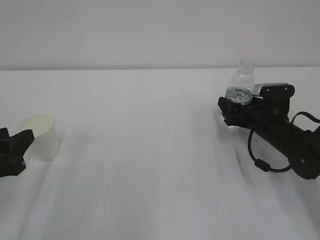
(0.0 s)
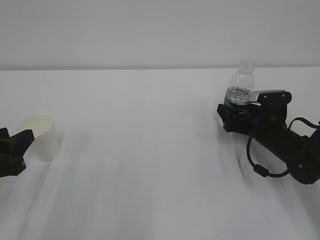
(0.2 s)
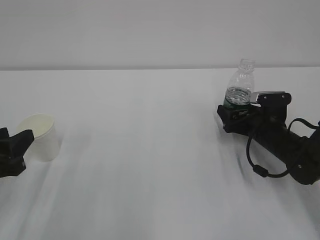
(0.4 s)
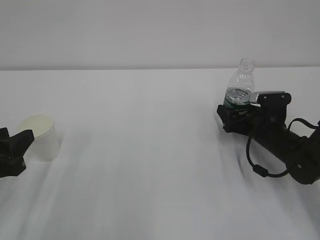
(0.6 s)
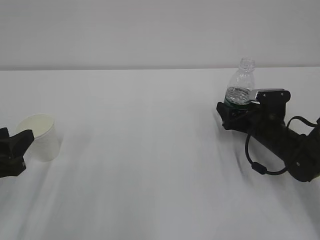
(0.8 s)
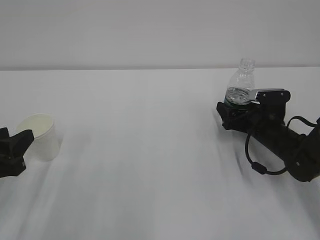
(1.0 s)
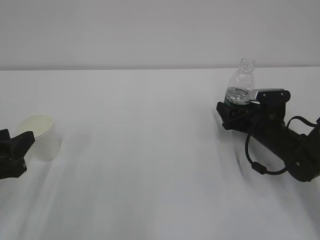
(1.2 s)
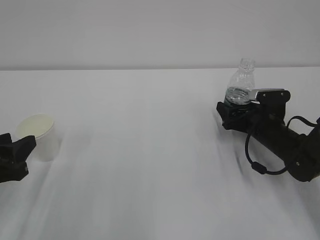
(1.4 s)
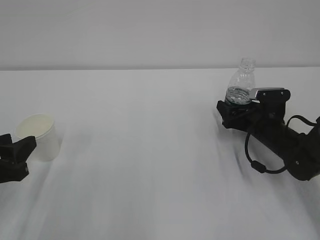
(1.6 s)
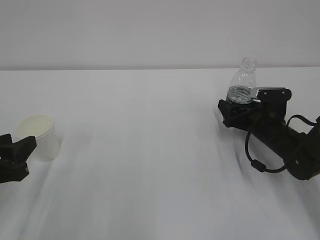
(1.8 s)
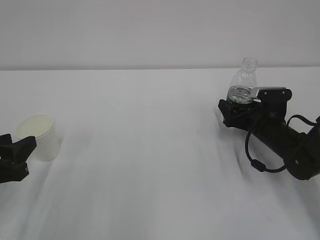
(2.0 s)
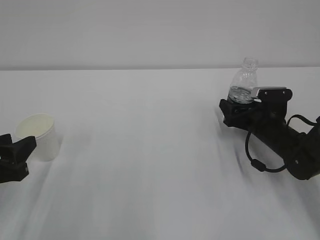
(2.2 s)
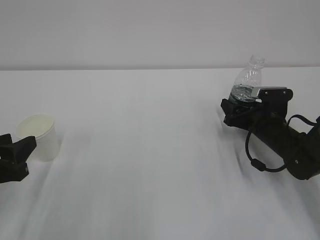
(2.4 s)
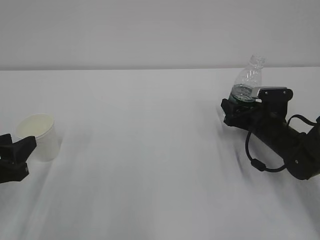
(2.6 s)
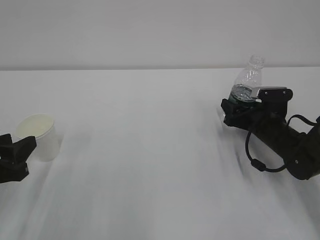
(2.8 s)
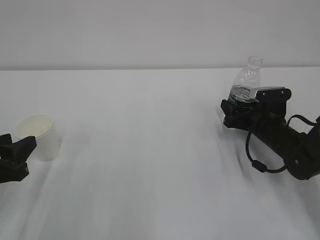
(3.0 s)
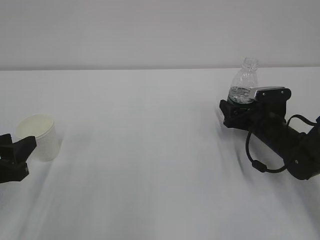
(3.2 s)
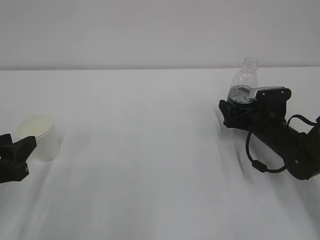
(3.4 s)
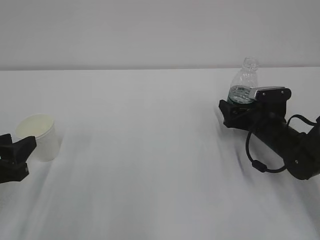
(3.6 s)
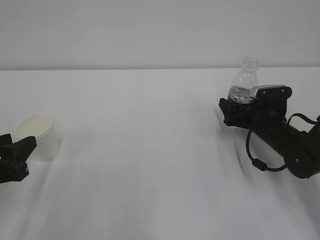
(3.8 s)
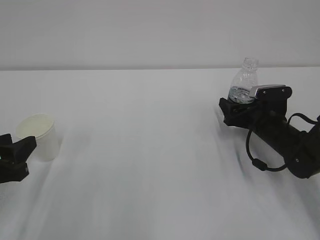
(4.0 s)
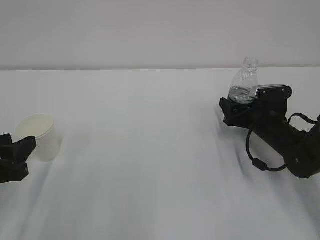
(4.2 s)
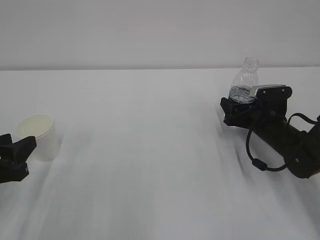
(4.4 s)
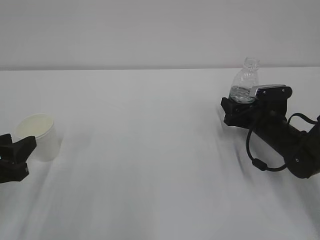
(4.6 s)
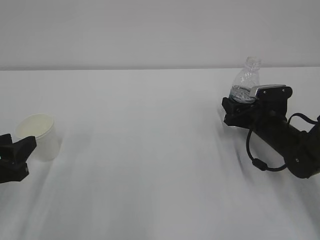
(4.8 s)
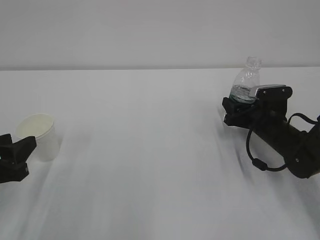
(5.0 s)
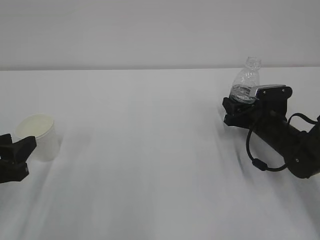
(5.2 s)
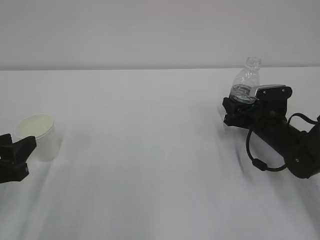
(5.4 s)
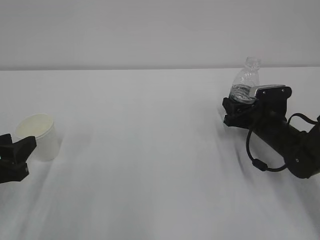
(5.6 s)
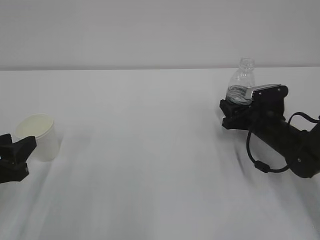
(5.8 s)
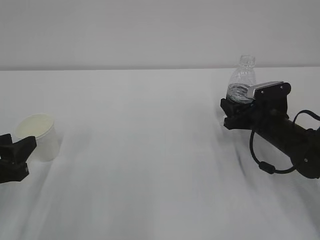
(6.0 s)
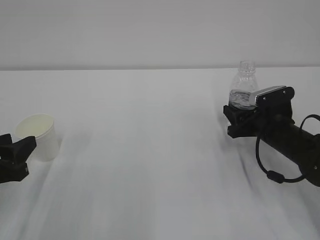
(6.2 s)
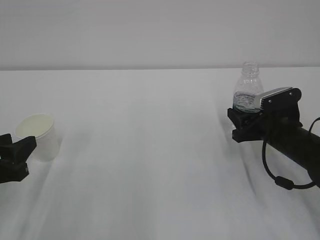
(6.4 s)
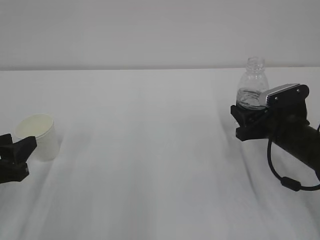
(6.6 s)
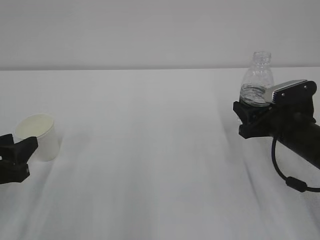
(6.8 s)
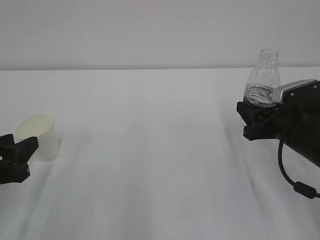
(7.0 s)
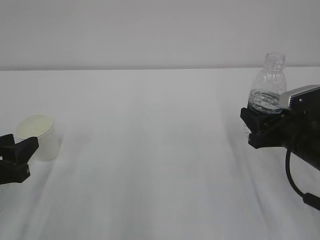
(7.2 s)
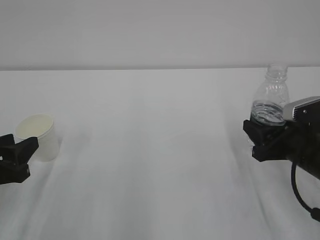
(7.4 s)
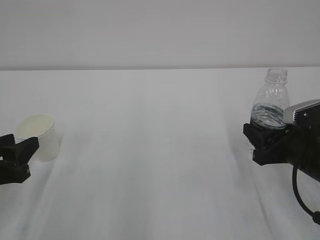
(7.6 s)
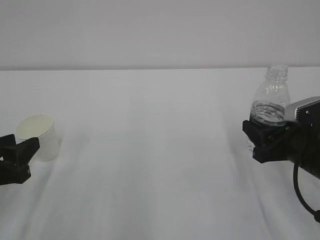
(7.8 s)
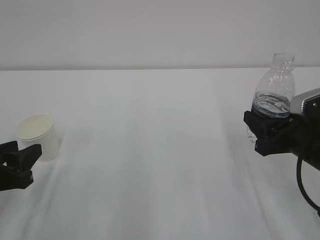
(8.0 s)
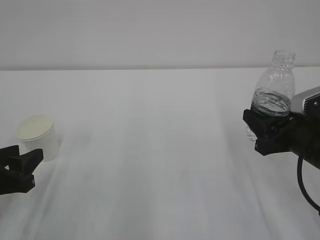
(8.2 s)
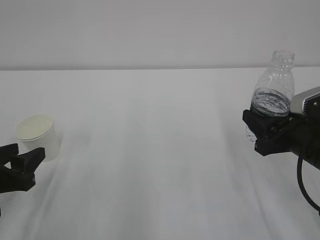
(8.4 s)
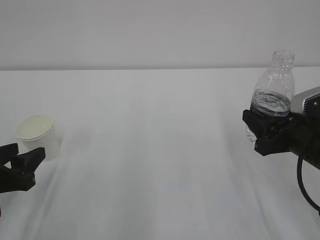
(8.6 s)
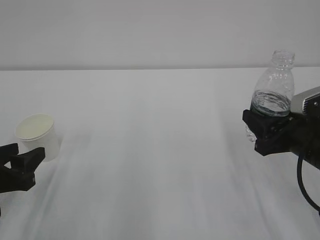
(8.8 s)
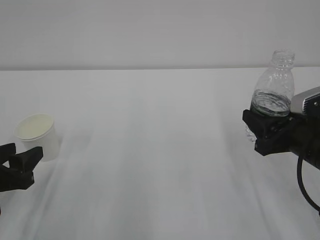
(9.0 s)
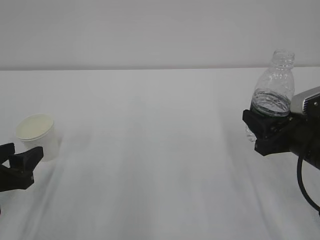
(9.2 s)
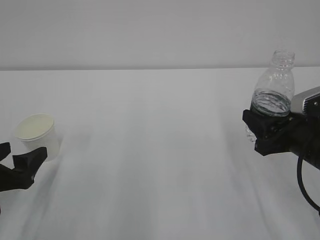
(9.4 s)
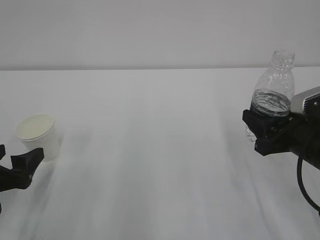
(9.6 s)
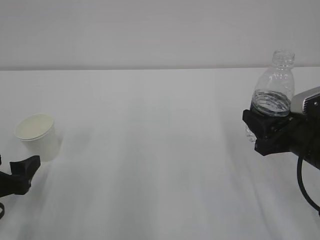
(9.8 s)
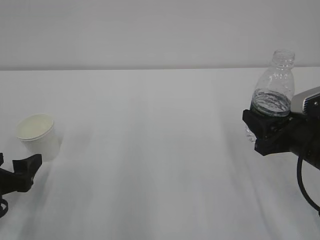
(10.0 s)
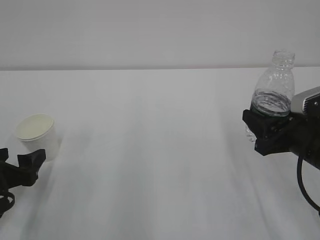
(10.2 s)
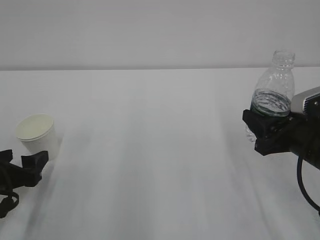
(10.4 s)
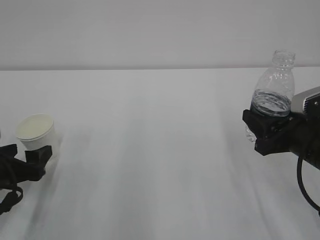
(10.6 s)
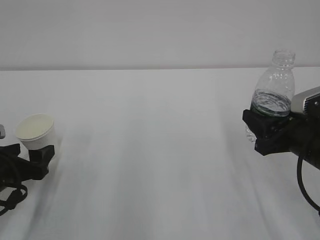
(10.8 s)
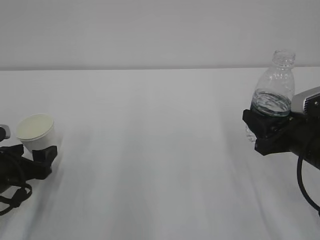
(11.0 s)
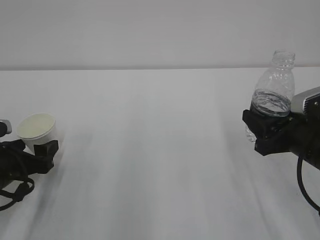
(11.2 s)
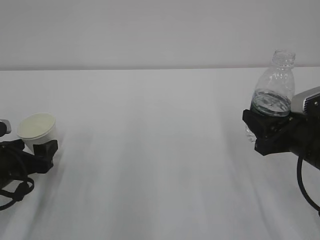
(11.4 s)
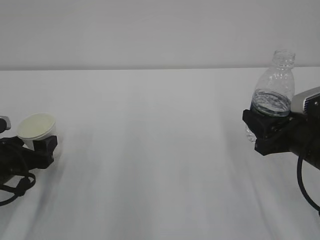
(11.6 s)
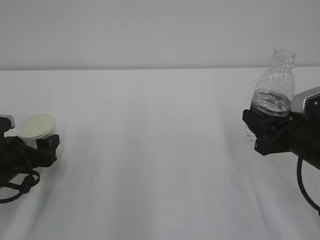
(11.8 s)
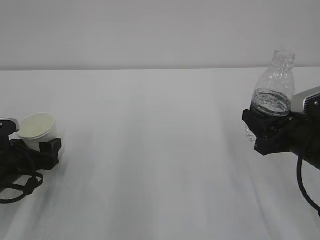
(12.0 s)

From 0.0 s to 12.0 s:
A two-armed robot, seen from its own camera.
From 0.0 s to 1.6 s: The grippers stay close to where they were, moving slightly.
From 1.6 s to 3.0 s: The right gripper closes up.
From 3.0 s to 4.4 s: The right gripper opens, then closes again.
From 4.4 s to 6.0 s: The right gripper closes.
From 6.0 s to 7.6 s: The right gripper goes roughly 10 cm backward.
From 7.6 s to 9.0 s: The grippers stay close to where they were, moving slightly.
From 9.0 s to 10.4 s: The left gripper opens up.
From 10.4 s to 12.0 s: The left gripper ends up about 5 cm from where it was.

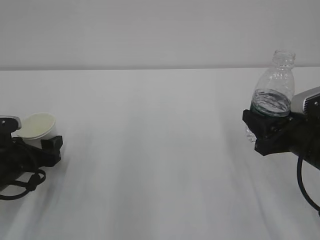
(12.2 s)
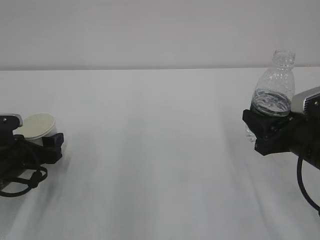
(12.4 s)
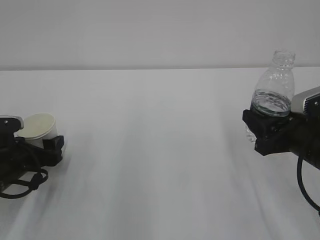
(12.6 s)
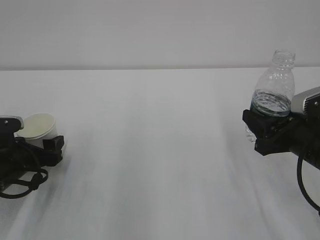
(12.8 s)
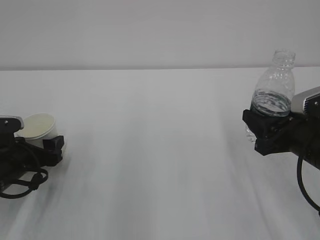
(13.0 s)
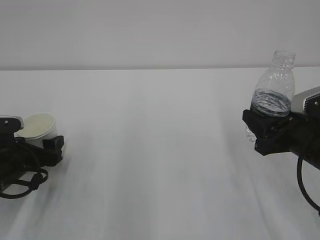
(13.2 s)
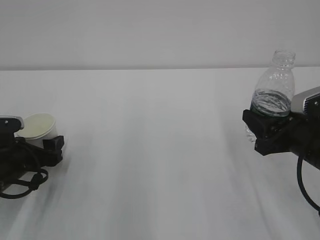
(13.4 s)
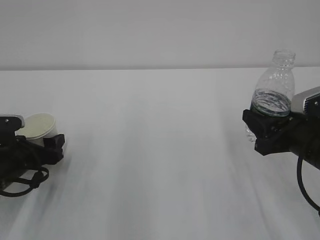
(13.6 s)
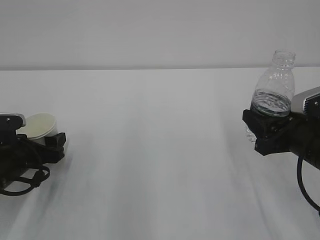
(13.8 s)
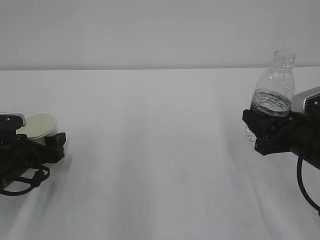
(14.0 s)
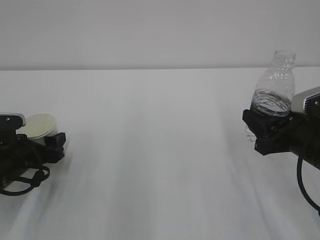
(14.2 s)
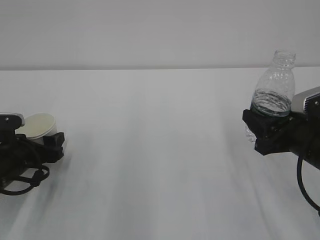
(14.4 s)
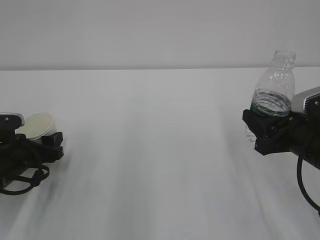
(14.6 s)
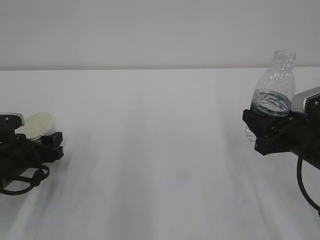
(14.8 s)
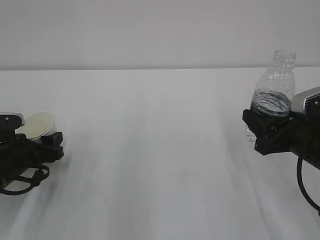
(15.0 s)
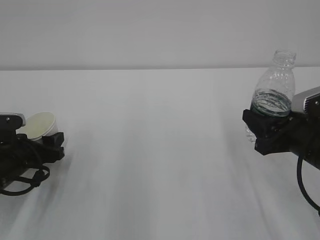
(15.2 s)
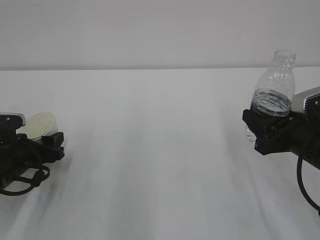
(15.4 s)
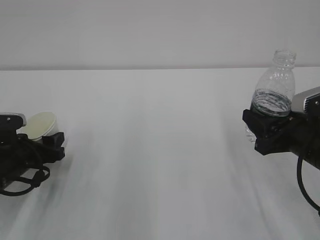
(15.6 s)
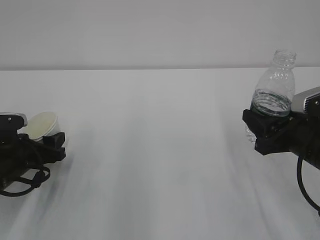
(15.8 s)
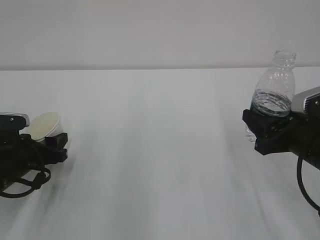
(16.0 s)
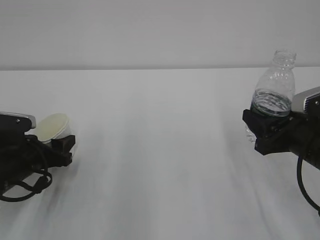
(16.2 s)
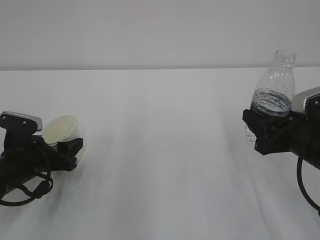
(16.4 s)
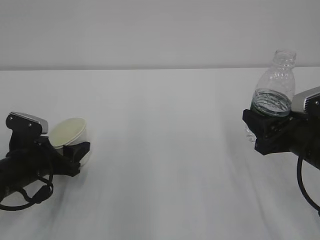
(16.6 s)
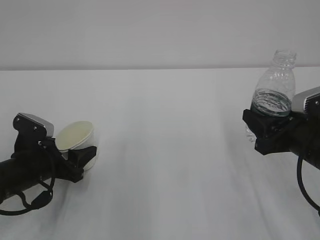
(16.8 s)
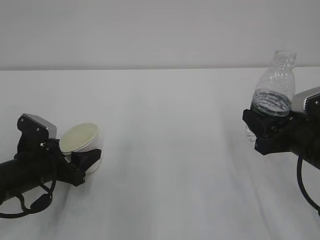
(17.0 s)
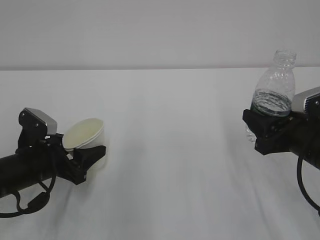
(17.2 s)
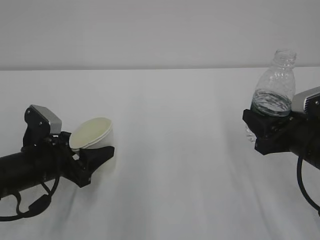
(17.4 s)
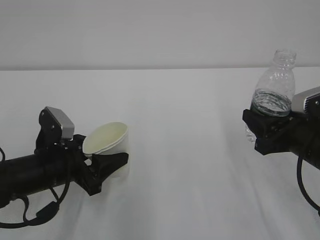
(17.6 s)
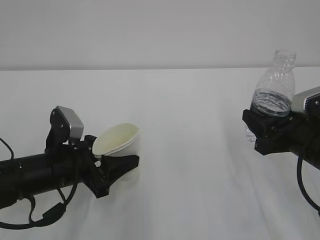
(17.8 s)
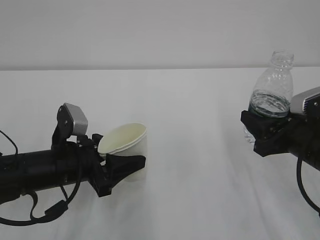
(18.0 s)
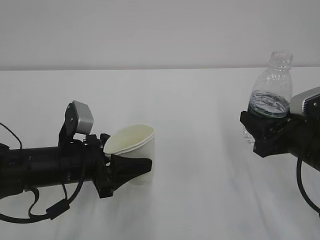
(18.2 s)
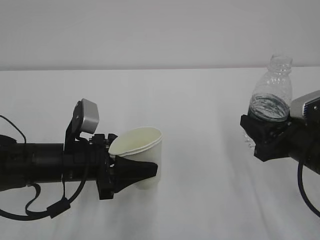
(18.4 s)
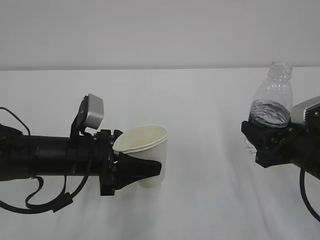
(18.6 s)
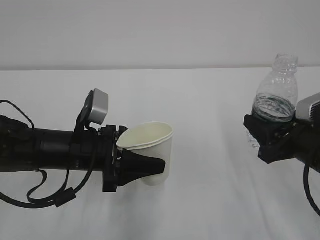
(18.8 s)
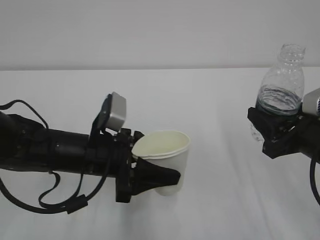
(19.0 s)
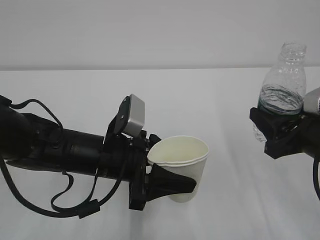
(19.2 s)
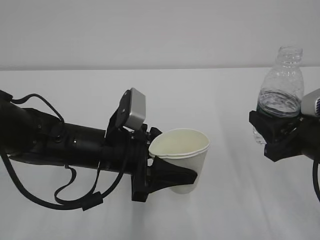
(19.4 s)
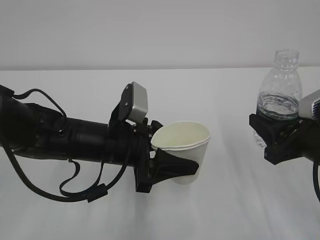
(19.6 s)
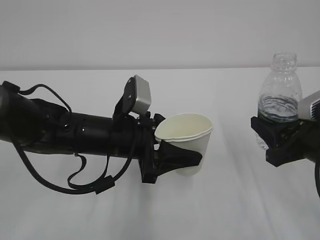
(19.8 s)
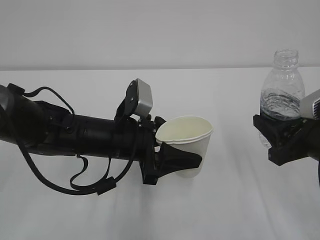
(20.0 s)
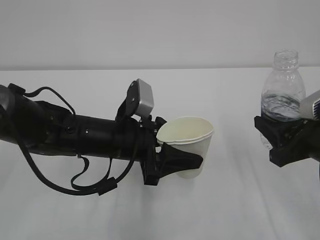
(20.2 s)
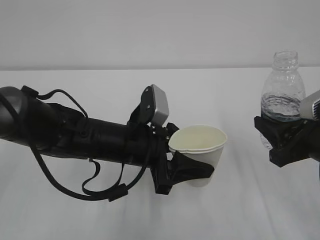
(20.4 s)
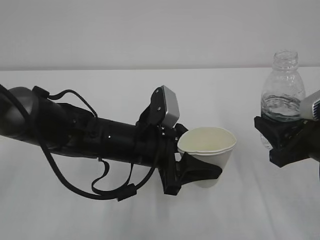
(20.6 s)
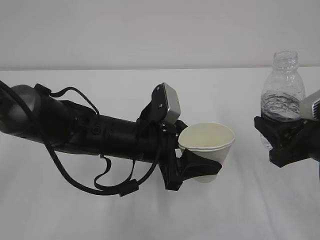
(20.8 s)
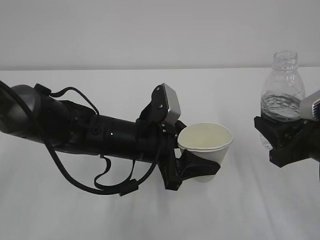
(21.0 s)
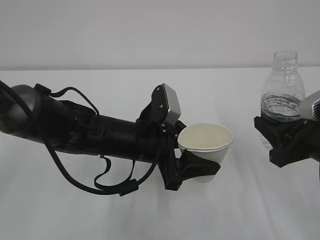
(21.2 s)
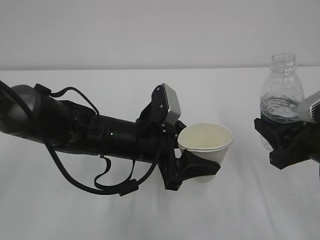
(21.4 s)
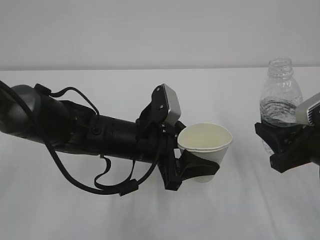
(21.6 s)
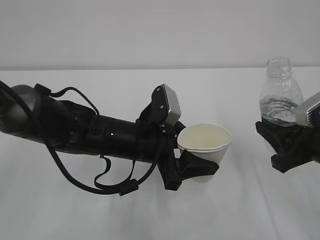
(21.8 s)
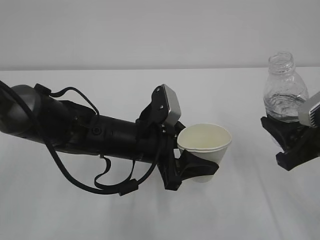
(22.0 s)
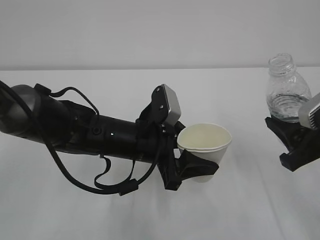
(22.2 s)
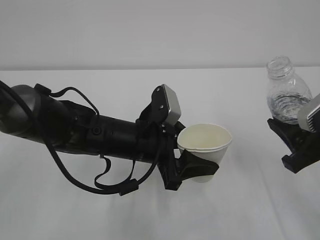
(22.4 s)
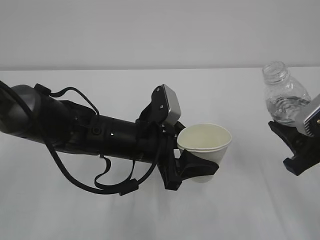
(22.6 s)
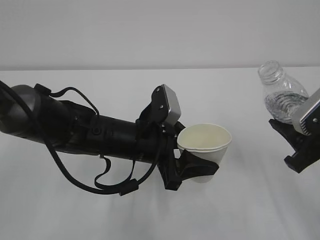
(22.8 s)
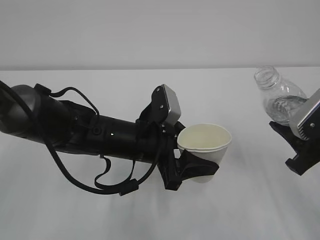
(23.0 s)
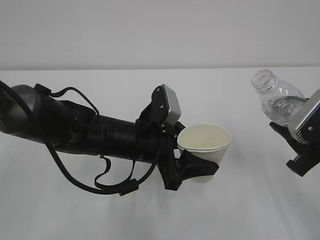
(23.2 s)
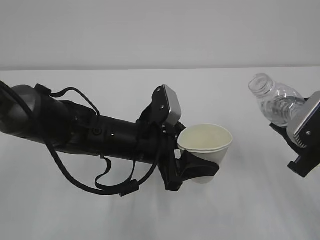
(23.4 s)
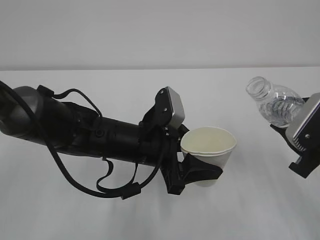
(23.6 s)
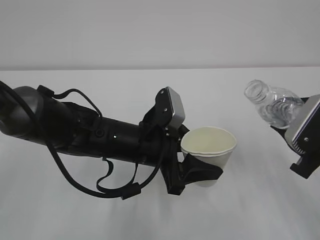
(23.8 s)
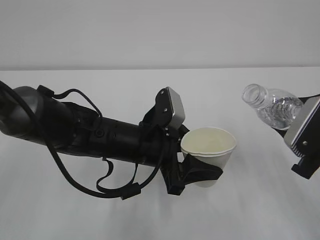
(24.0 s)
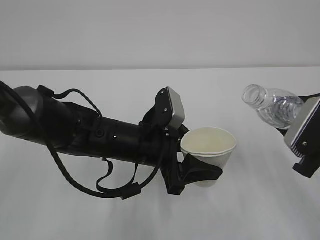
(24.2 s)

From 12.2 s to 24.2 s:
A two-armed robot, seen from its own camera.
From 12.2 s to 13.8 s: The two grippers keep their place.
From 16.6 s to 18.2 s: The left gripper shifts some 10 cm to the right.
From 18.2 s to 19.8 s: The left gripper heads to the right, covering roughly 10 cm.
From 19.8 s to 21.2 s: There are only small adjustments of the grippers.
